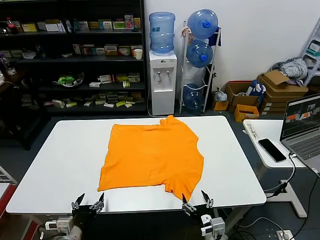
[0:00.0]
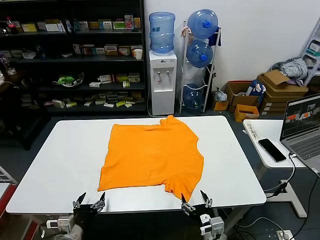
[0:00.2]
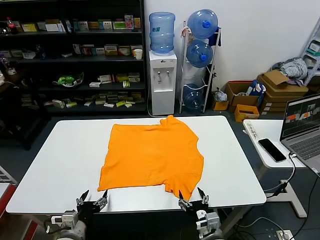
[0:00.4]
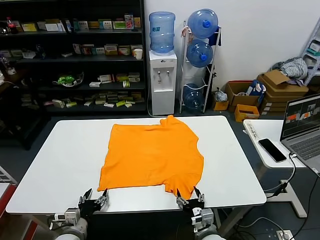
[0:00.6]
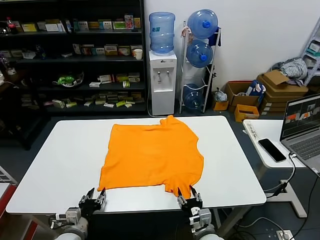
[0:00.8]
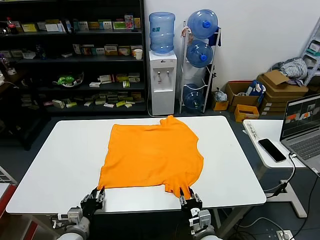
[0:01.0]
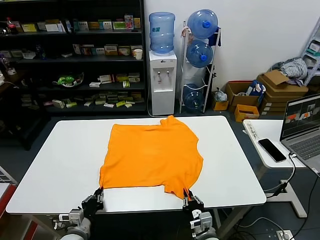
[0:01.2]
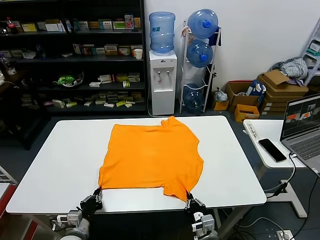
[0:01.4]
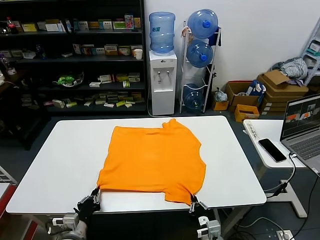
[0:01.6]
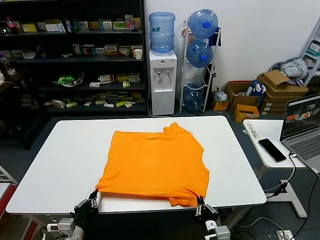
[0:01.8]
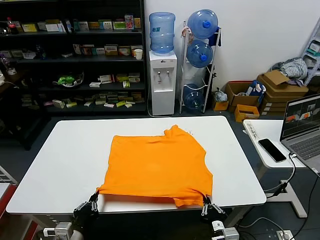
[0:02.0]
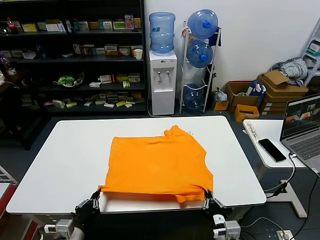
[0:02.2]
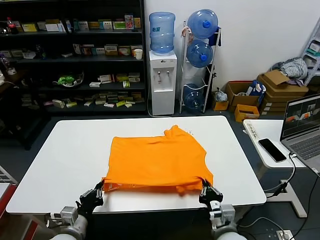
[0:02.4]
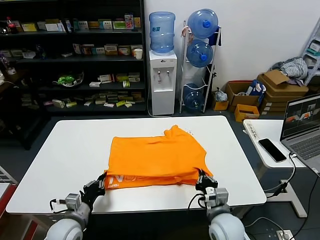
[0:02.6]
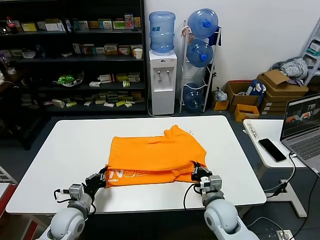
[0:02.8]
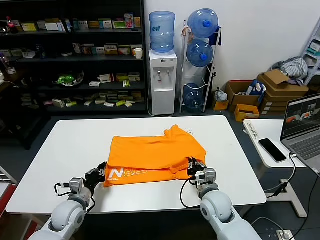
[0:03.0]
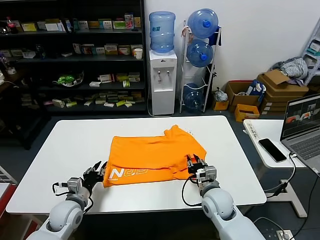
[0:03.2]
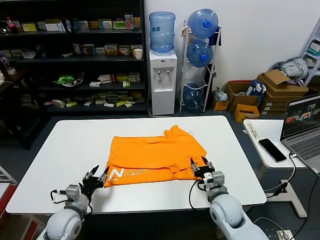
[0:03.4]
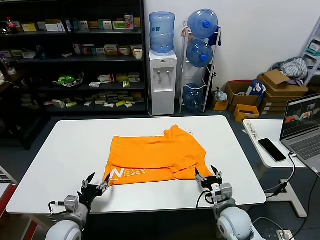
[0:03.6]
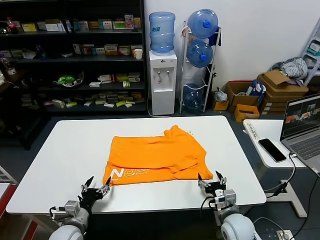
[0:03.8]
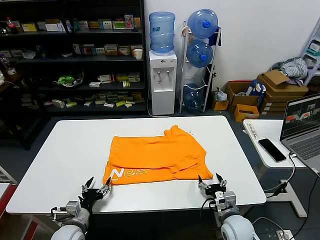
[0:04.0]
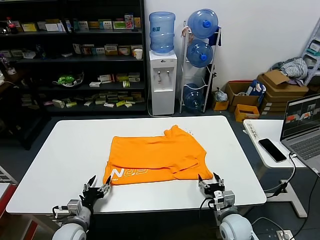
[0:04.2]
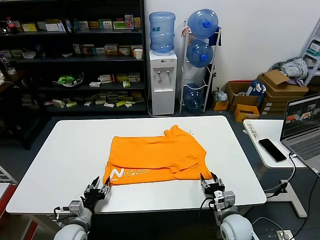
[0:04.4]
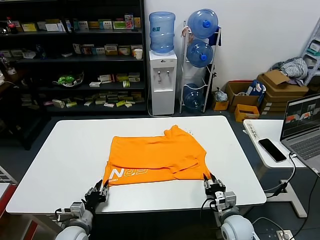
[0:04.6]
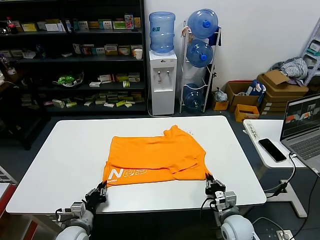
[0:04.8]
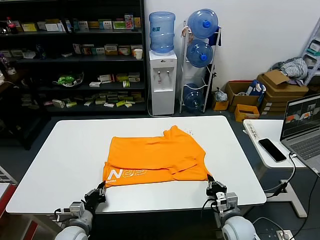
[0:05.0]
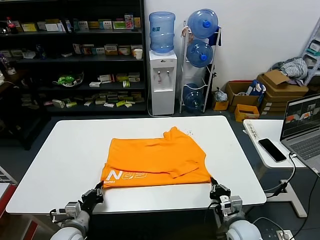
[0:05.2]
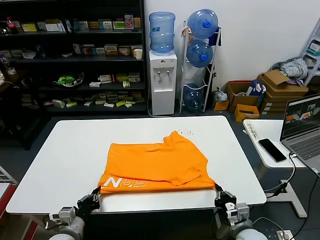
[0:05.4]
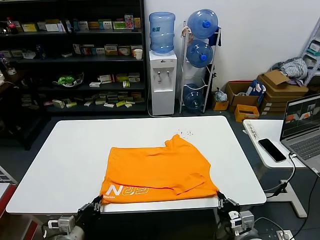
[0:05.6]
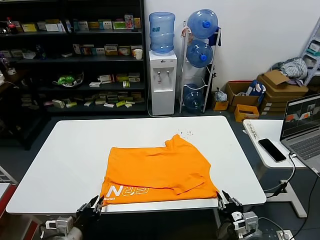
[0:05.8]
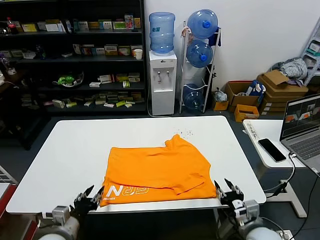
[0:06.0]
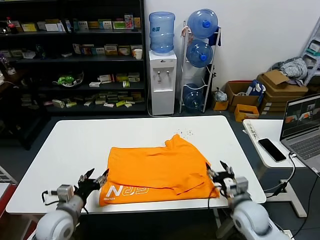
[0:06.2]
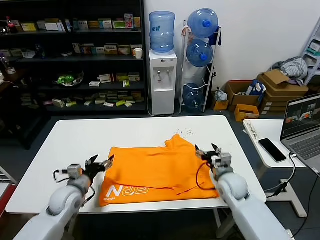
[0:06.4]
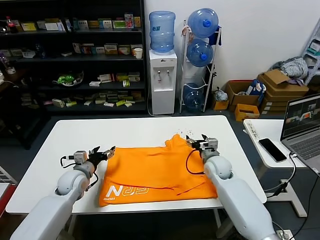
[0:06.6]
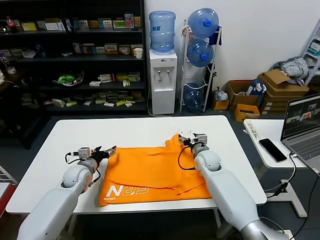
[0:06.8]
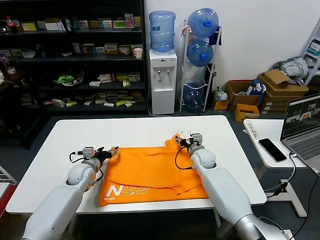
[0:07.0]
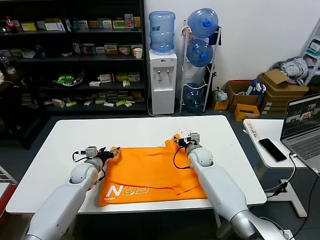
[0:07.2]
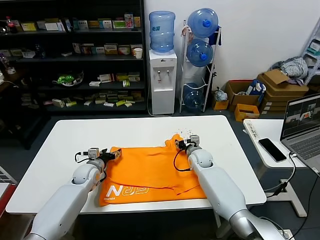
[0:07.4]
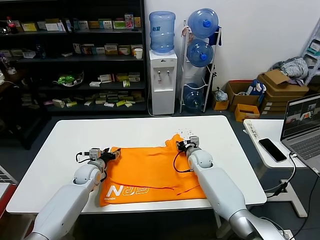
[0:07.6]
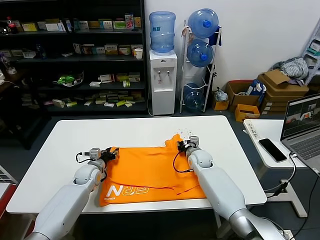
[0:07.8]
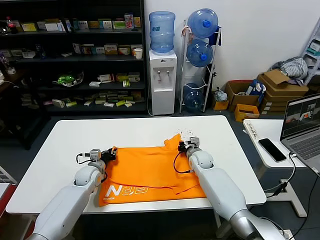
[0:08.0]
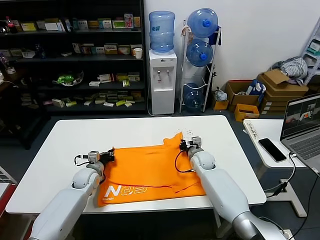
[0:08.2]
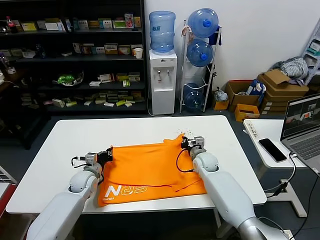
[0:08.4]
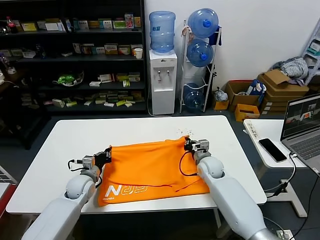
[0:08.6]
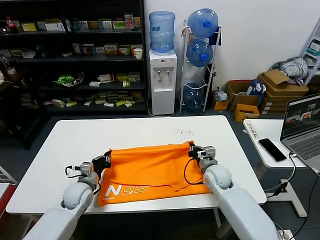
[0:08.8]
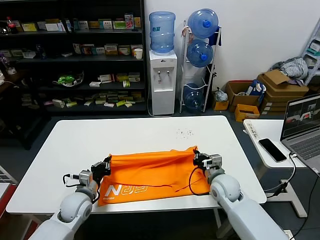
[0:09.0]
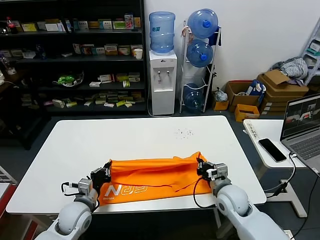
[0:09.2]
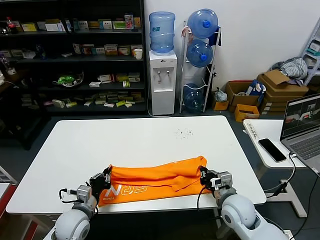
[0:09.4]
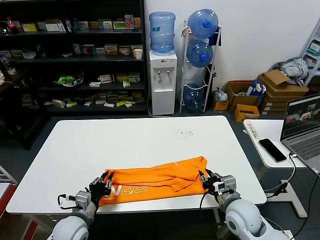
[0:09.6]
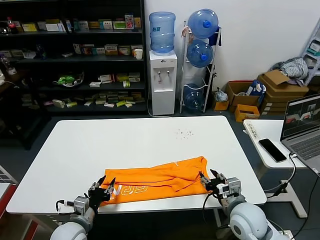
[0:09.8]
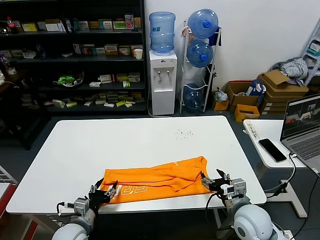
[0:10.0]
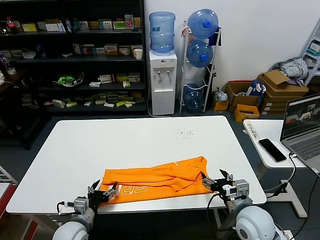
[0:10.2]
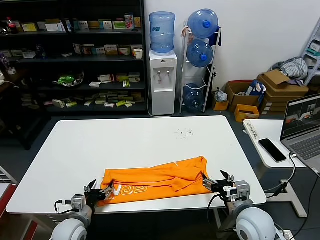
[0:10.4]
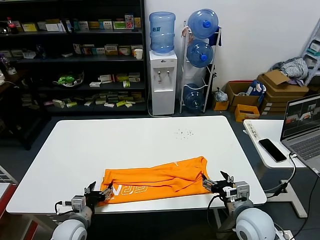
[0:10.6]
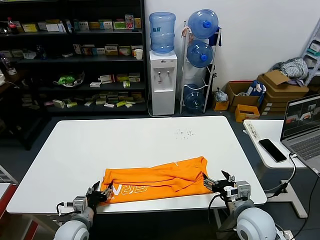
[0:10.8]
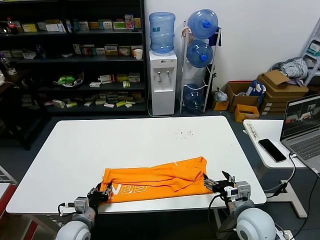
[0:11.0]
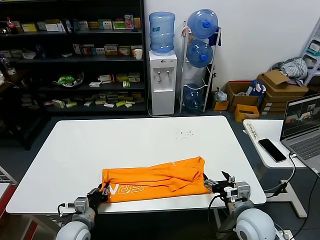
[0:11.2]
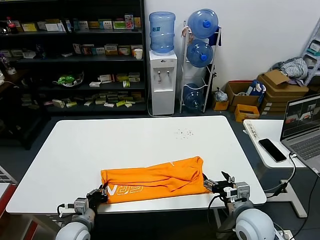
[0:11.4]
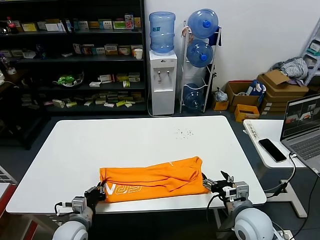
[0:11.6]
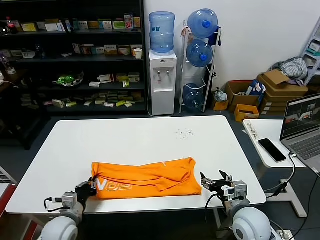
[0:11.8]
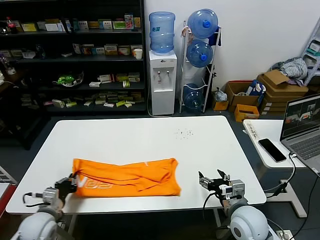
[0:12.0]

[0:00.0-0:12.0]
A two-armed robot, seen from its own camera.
Task of the whole recording: fold and organize the clothes.
Step, 0:00.0 to 0:01.2: use both grippers simultaneously to clamp the lower edge of the clothing fabric.
Step, 0:01.4 to 0:03.2: use both grippers to drag the lower edge of the fabric forward and fold it over the upper edge.
Step, 0:03.4 to 0:05.8: Drag the clothes downward with both gripper.
Step, 0:06.0 to 0:08.2: use both grippers simultaneously to clamp the upper edge of the clothing fabric.
Step, 0:08.4 to 0:09.6: use both grippers to drag the upper edge of the fabric backward and fold it over the lower edge.
Step, 0:10.0 to 0:11.4: use the left gripper to clamp the left edge of the fabric.
0:01.6 to 0:03.0: The right gripper travels forward and upward by some 15 cm, while the left gripper goes some 10 cm forward.
0:03.0 to 0:04.4: The right gripper is displaced to the right, downward and backward by some 10 cm, and opens; the left gripper travels backward and downward by about 10 cm, and opens its fingers.
0:04.4 to 0:06.0: Both grippers move upward and backward, about 10 cm. The right gripper closes and opens again. The left gripper closes and opens again.
0:06.0 to 0:07.6: Both grippers move forward, about 30 cm. The right gripper opens, then closes once more.
0:07.6 to 0:09.0: The right gripper heads backward and to the right, covering some 15 cm, and closes. Meanwhile the left gripper is displaced backward by some 10 cm, and closes up.
0:09.0 to 0:10.4: The left gripper heads backward, covering roughly 10 cm, and opens up; the right gripper travels backward and upward by about 15 cm, and opens up.
0:10.4 to 0:12.0: The left gripper goes about 10 cm to the left, and closes up.

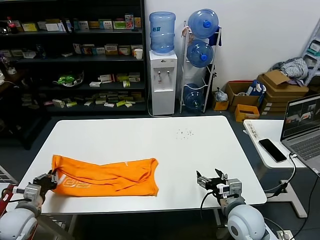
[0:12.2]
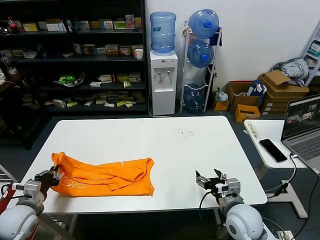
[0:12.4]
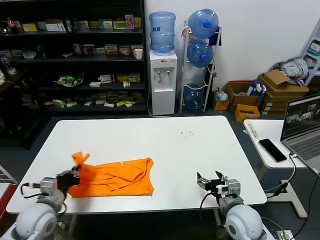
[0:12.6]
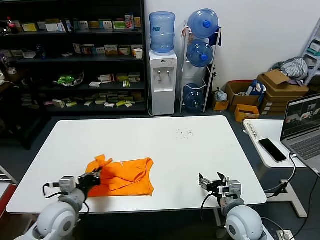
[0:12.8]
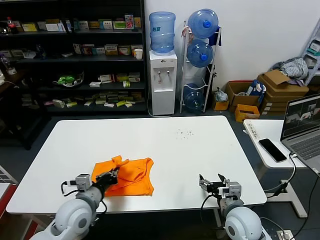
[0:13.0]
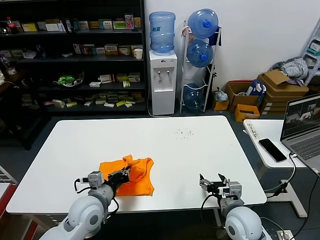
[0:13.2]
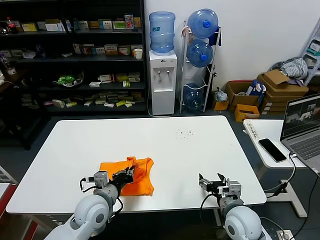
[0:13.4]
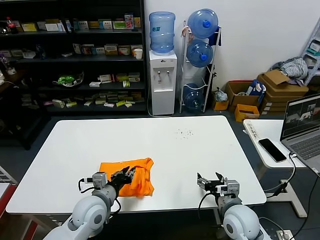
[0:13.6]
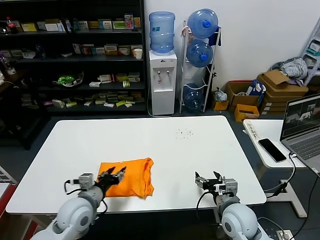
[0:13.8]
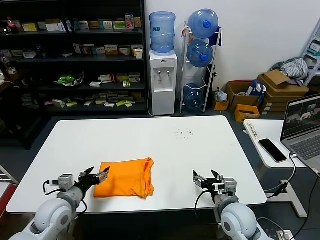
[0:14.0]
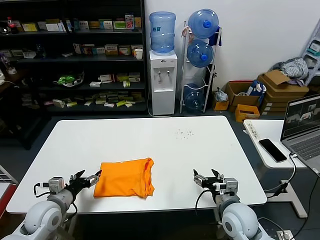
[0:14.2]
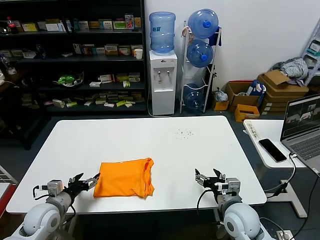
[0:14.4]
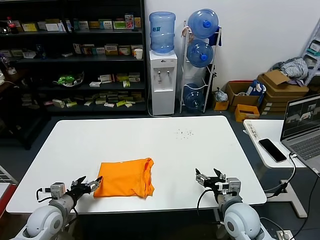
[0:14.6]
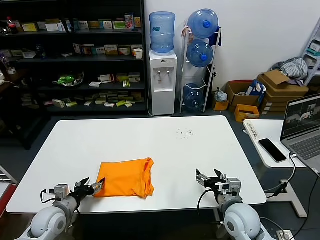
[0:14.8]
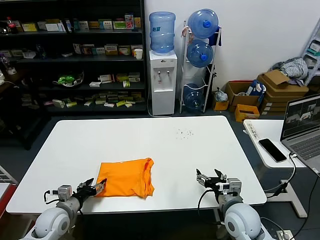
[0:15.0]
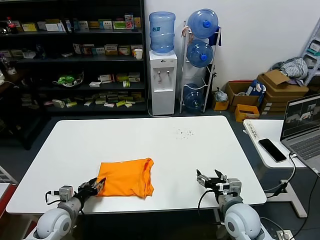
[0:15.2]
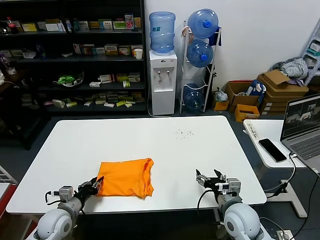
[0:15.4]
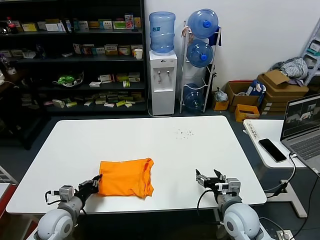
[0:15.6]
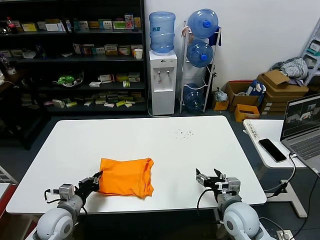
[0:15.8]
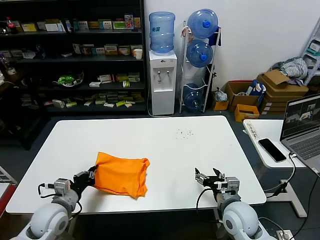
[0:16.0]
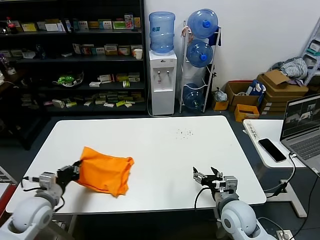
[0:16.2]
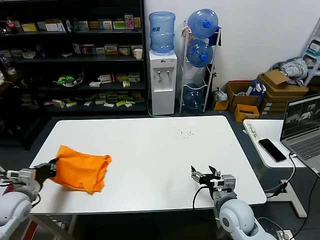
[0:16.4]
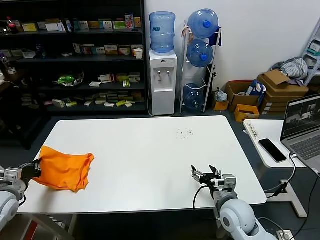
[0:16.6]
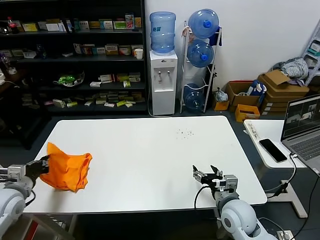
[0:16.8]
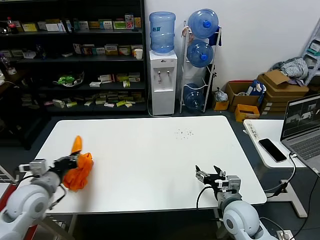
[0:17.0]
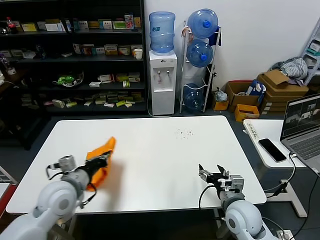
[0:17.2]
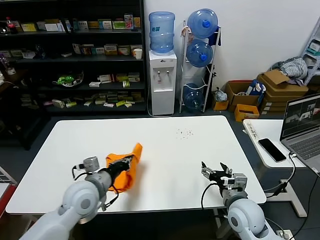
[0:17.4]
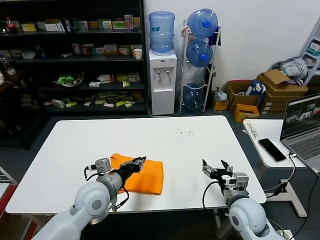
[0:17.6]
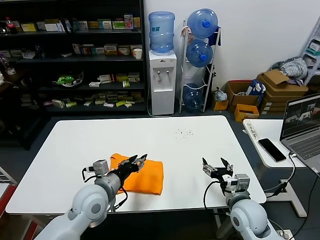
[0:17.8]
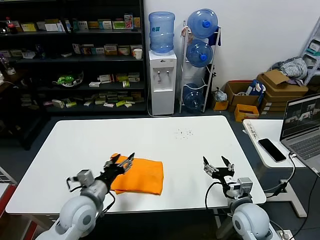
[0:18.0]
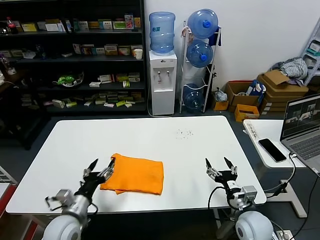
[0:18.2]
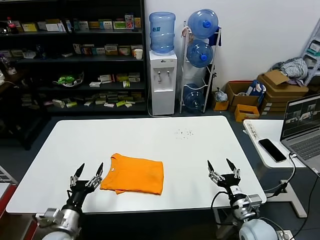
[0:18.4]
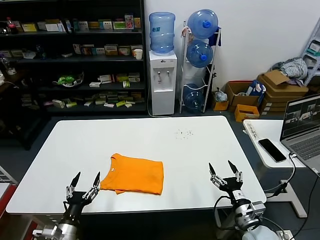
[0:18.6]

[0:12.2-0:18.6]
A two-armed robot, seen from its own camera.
Task of the whole recording: fold and organize the clothes.
Step, 0:12.2 to 0:13.6: use the left gripper to drag the left edge of the fabric to the left and folds it over the right edge.
Step, 0:13.8 to 0:17.8: Flip the folded clothes over with left gripper.
0:12.2 to 0:13.8: The left gripper heads to the right, covering approximately 20 cm, and opens its fingers.
0:13.8 to 0:15.4: The left gripper moves to the left and downward, some 15 cm, and opens, then closes once more.
0:15.4 to 0:17.0: The left gripper moves upward, about 15 cm, goes to the left and returns, about 15 cm each way, and closes.
0:17.0 to 0:18.6: The left gripper moves downward, backward and to the right, about 20 cm, and opens up, while the right gripper travels to the right, downward and backward by some 10 cm.

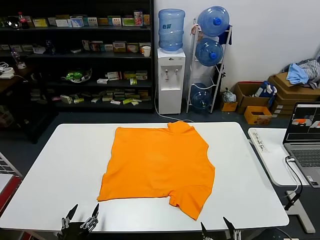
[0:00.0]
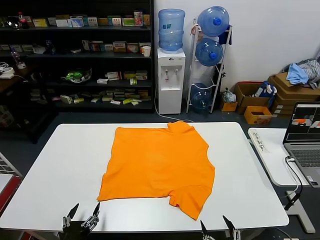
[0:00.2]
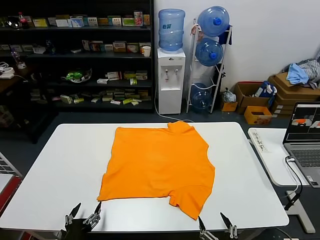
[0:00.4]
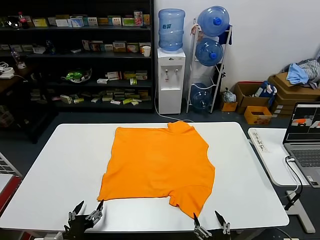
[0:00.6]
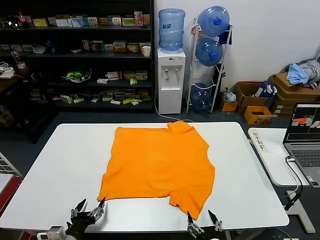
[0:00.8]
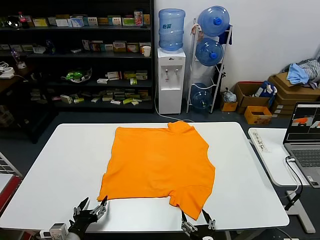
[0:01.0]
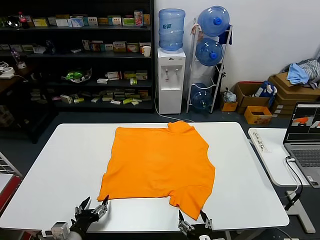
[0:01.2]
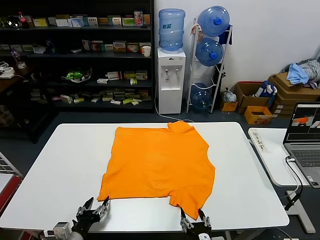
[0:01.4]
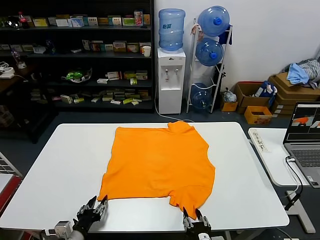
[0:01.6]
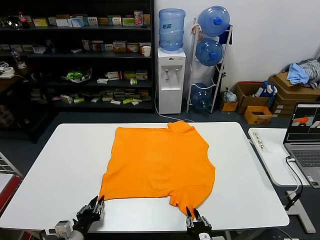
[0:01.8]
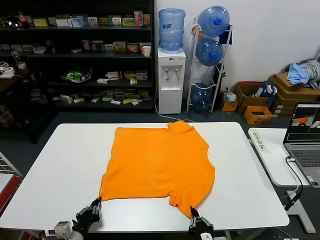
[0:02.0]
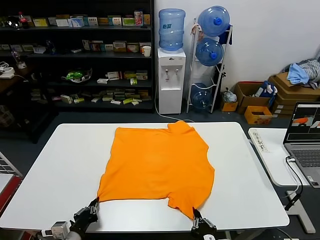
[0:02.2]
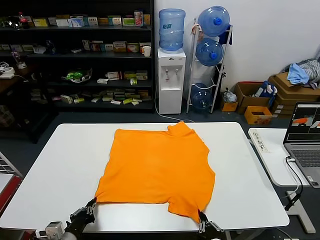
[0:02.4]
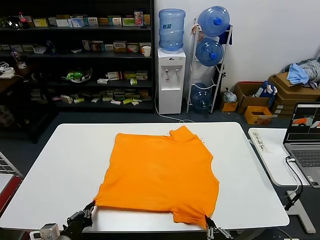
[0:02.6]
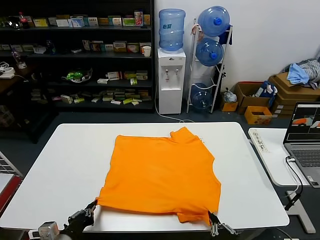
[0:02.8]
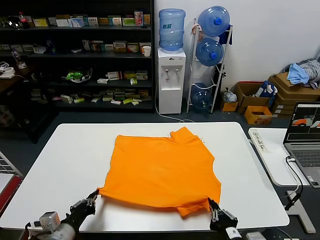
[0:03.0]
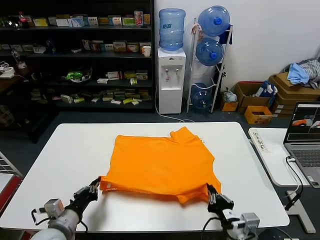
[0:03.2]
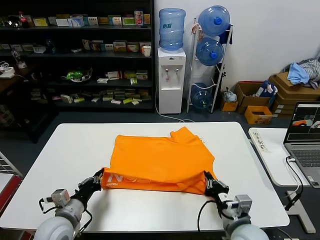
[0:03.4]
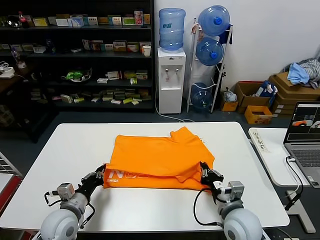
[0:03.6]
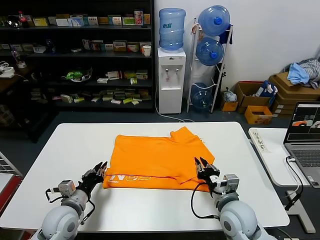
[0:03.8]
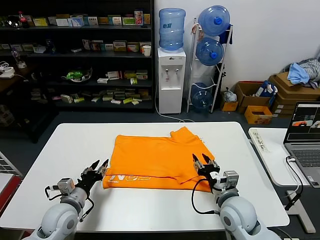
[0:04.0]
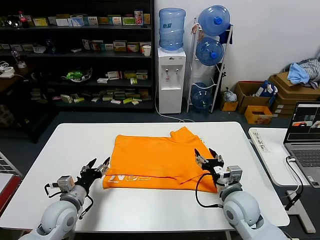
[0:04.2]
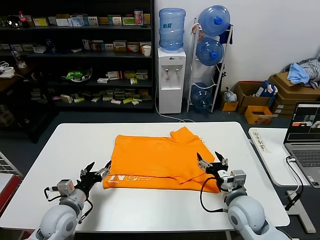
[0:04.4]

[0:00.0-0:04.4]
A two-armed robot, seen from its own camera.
Task of the whole recording: fold and organize the clothes.
Step, 0:00.0 to 0:02.4: use both grippers simultaneously to clamp the lower edge of the clothing fabric.
Step, 0:02.6 to 0:03.8: use both grippers to drag the lower edge of the fabric forward and fold it over the upper edge.
0:01.4 to 0:03.0: The right gripper travels upward and to the right by some 10 cm, and closes up. Meanwhile the left gripper heads upward, covering approximately 10 cm, and closes.
0:03.0 to 0:04.4: The grippers both shift forward by roughly 10 cm. The left gripper opens. The right gripper opens its fingers.
